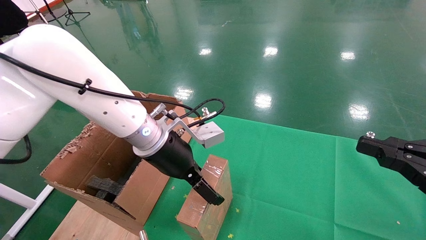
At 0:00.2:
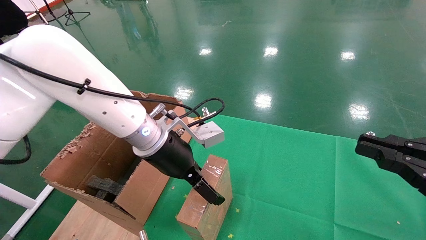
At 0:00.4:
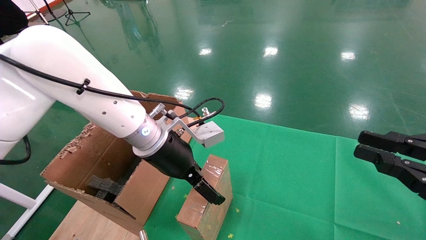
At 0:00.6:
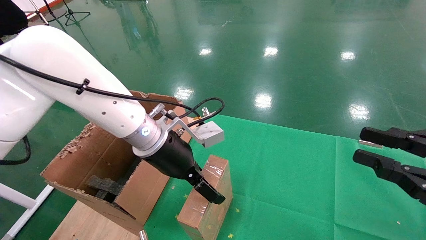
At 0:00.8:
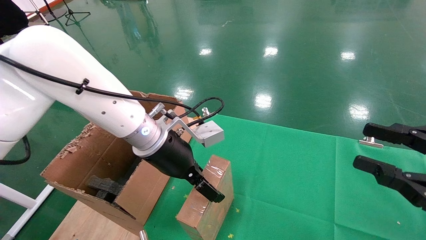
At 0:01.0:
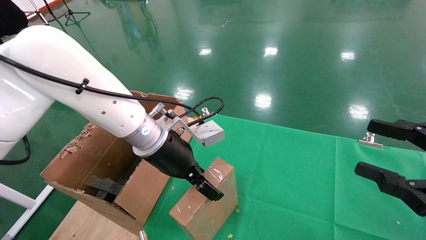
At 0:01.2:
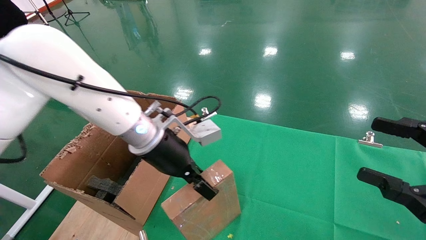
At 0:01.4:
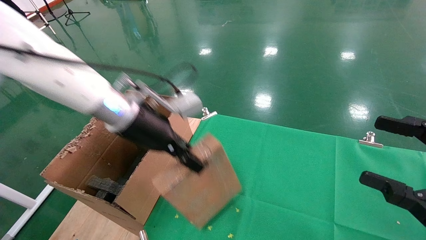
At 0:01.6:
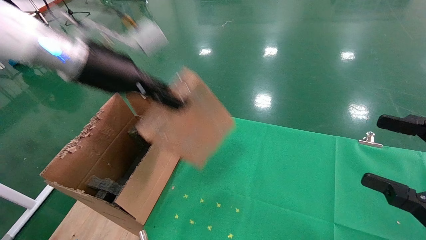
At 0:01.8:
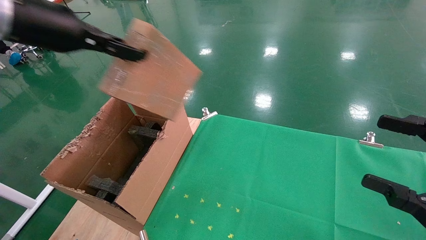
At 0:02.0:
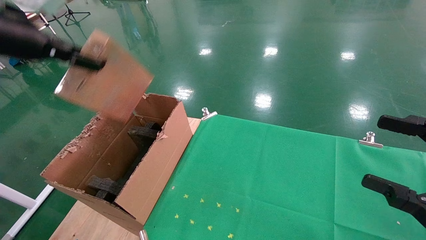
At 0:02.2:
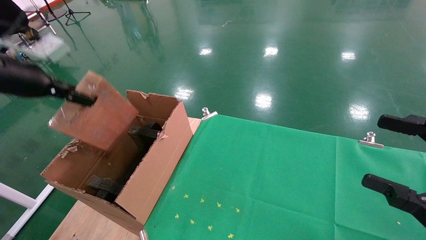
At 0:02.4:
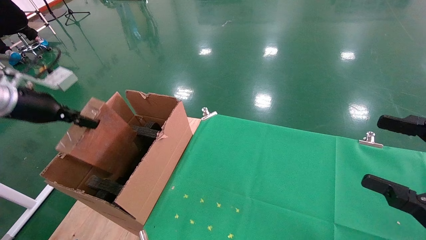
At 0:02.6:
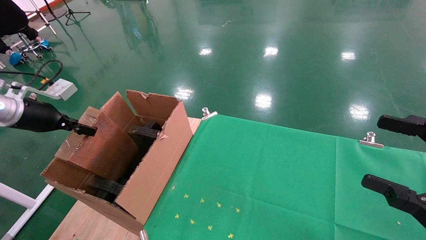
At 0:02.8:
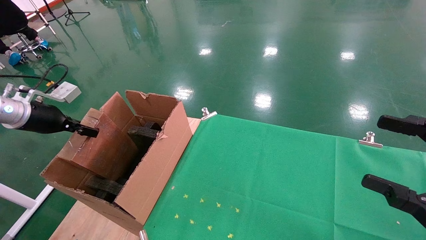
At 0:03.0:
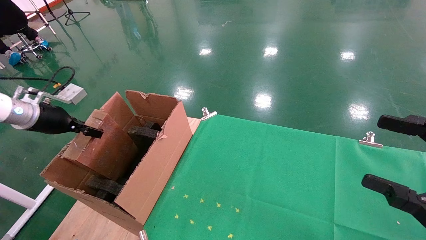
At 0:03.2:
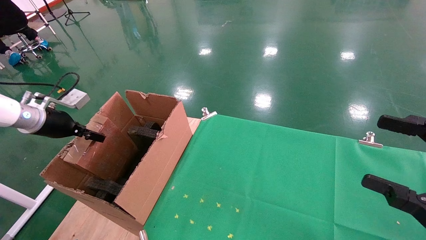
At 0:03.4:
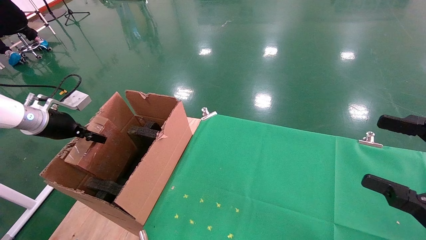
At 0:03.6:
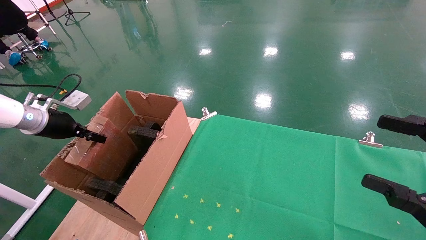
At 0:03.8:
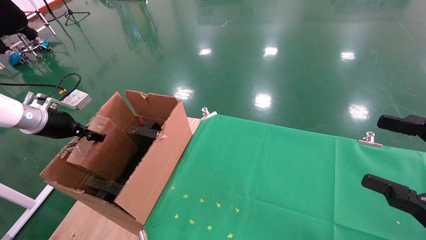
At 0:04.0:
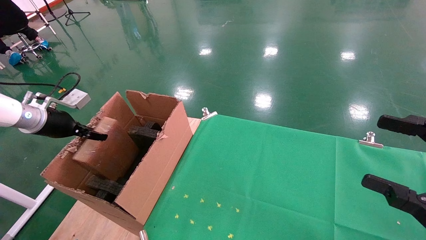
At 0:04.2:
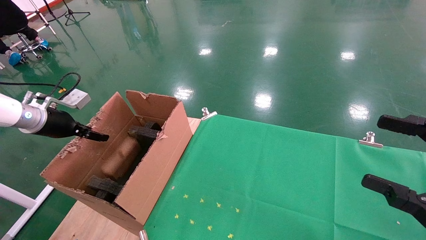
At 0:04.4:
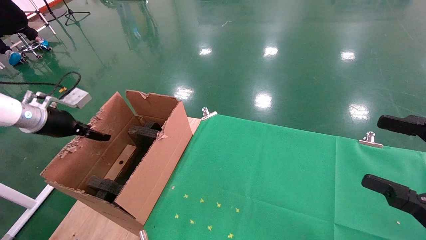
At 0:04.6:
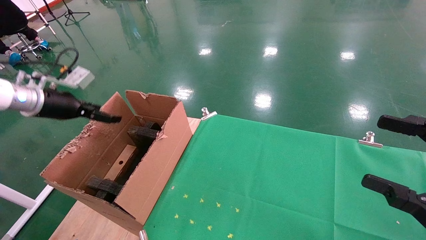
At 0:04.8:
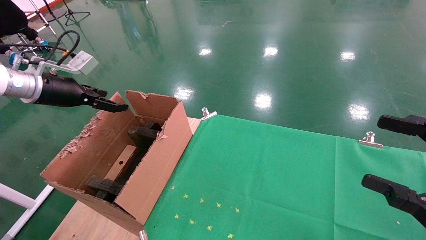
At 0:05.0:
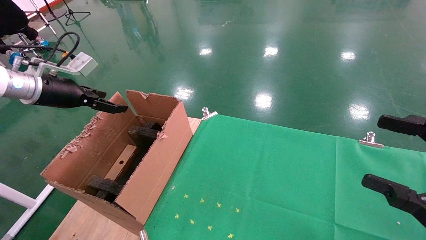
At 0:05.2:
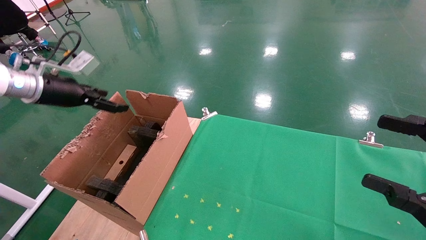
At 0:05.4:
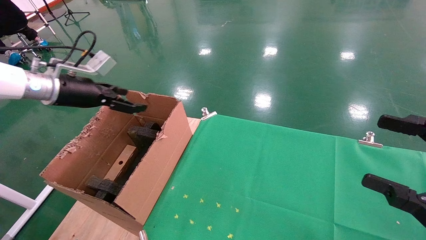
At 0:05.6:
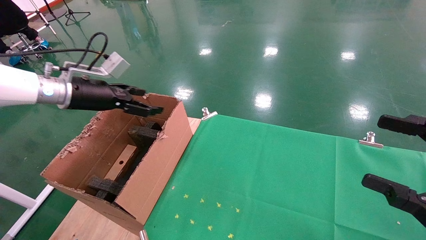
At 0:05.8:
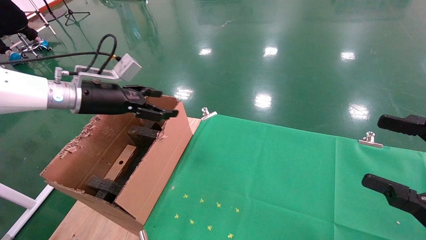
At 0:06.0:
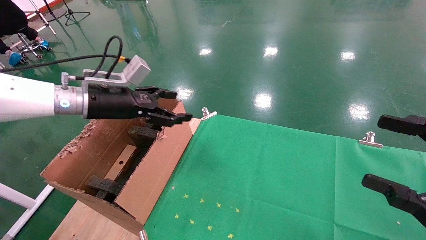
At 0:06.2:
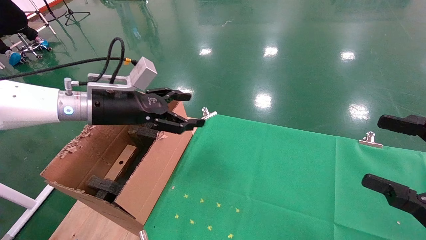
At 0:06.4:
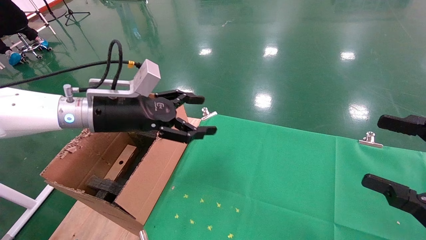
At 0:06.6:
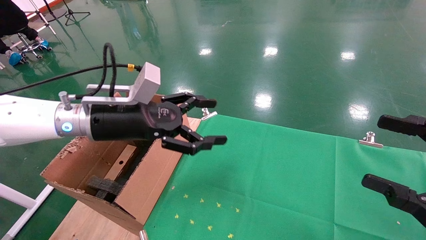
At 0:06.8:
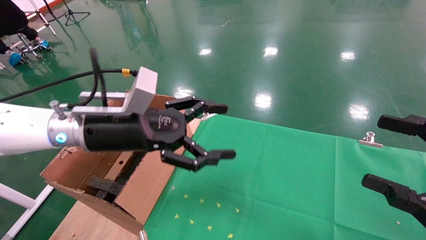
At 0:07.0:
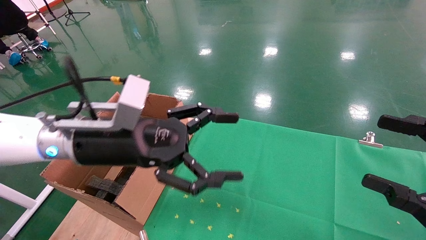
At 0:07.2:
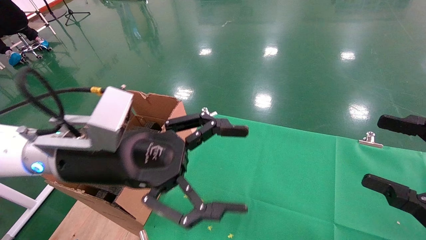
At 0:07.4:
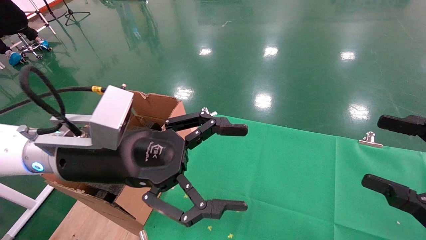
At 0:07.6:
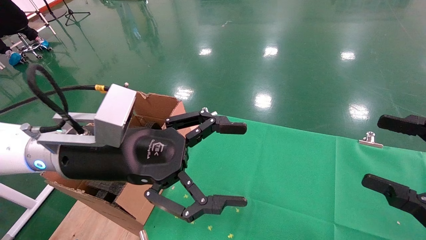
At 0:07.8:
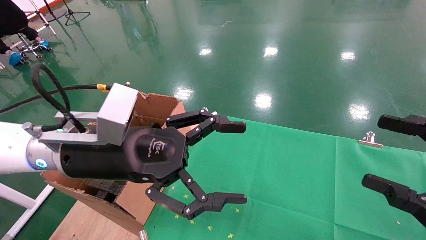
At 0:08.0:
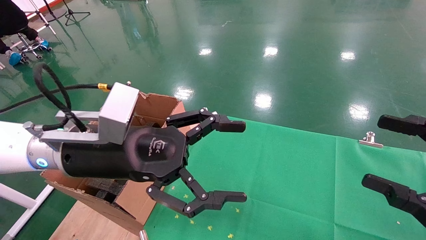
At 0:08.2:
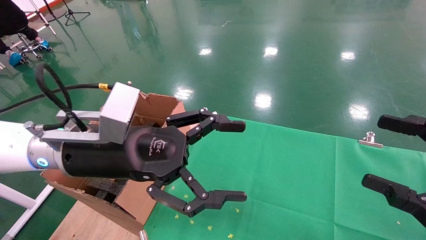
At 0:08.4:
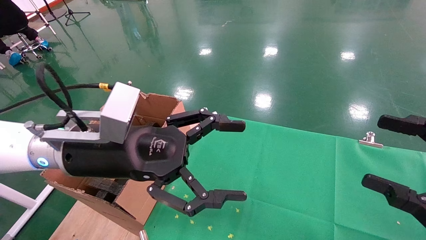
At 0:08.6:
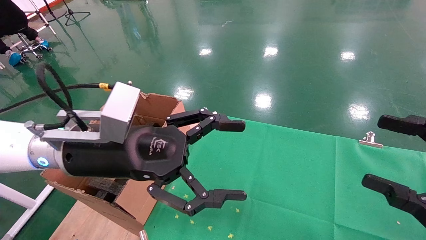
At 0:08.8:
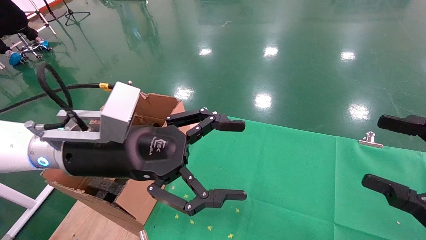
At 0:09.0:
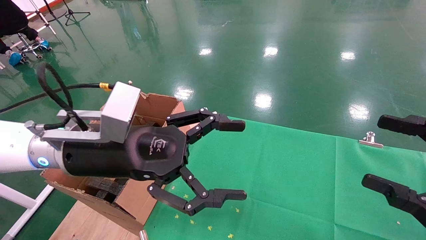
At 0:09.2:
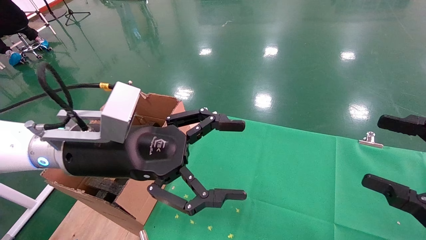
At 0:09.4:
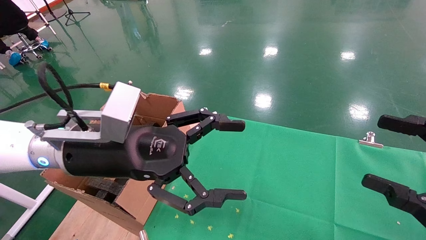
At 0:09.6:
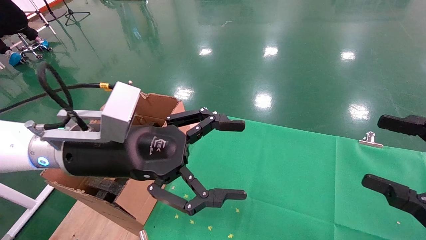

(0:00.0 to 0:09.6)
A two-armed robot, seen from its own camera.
Task of the whole recording: using a robotic arm to pick up a cardboard box and palace it the carton.
Step, 0:01.6 - 0:04.0: Place the mouse and the power cord paper box into the container.
0:00.0 - 0:01.6: The left gripper travels upward and to the left by approximately 15 cm, and closes up. The right gripper opens.
0:01.6 - 0:03.2: The left gripper goes some 30 cm to the left and downward.
0:03.2 - 0:04.8: The left gripper shifts approximately 5 cm upward, and opens its fingers.
0:04.8 - 0:06.4: The left gripper goes roughly 20 cm to the right.
0:06.4 - 0:08.0: The left gripper is displaced backward and to the right by roughly 10 cm.
0:08.0 - 0:09.6: Both grippers stay put.

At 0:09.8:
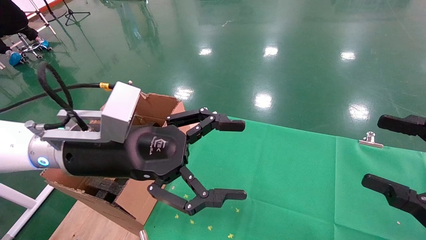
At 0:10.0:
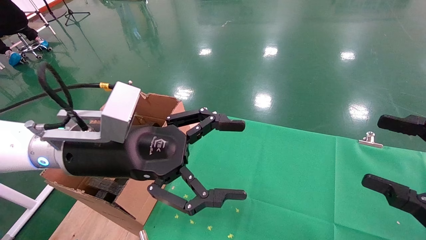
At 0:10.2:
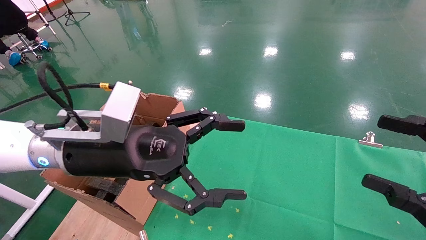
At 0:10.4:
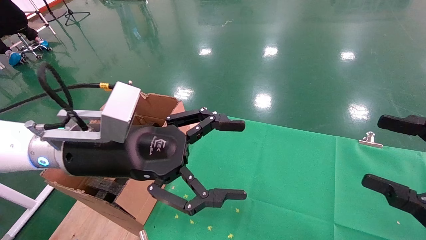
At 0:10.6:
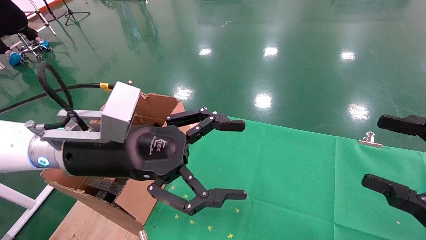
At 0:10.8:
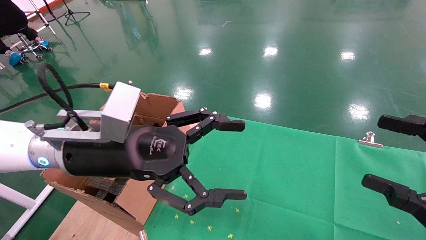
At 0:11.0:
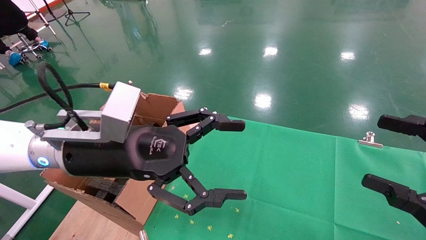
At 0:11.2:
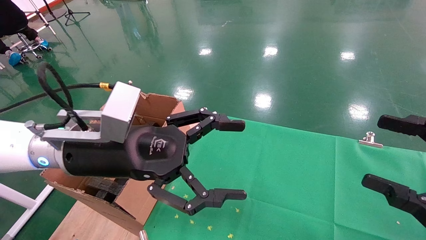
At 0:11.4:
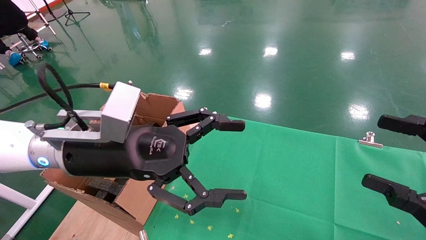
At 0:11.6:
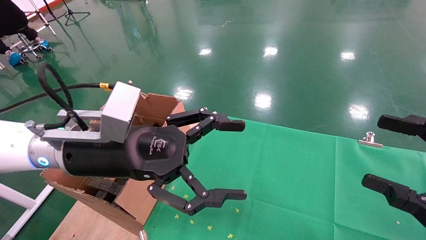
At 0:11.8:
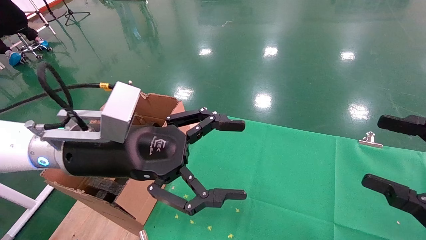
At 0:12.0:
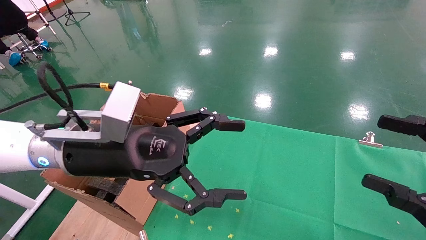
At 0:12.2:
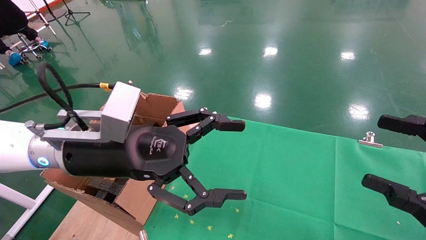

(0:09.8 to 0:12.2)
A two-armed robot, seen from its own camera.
Task of the whole recording: using a robotic arm to pick up a cardboard box and palace it the carton.
0:09.8 - 0:12.2: Neither gripper changes place.
